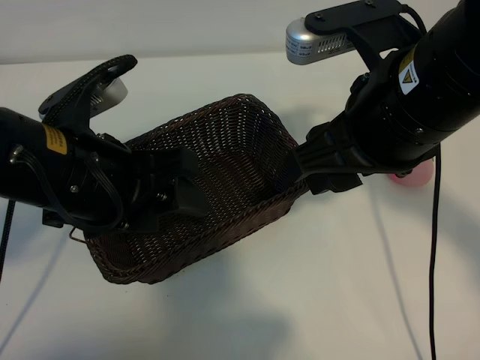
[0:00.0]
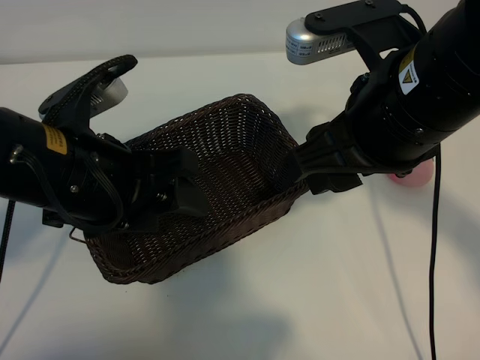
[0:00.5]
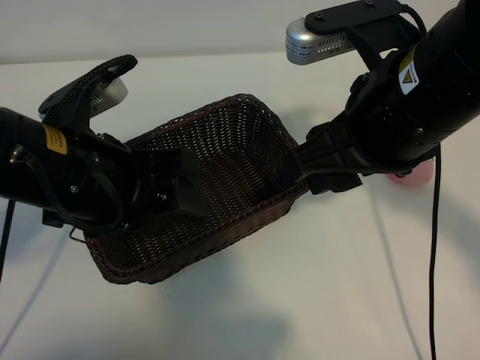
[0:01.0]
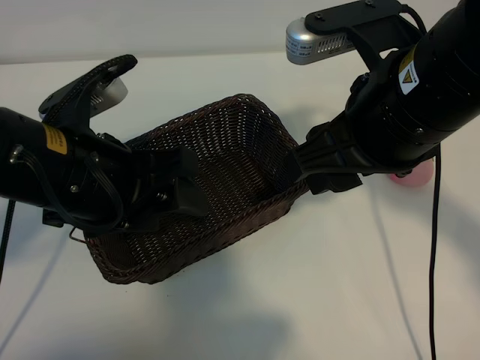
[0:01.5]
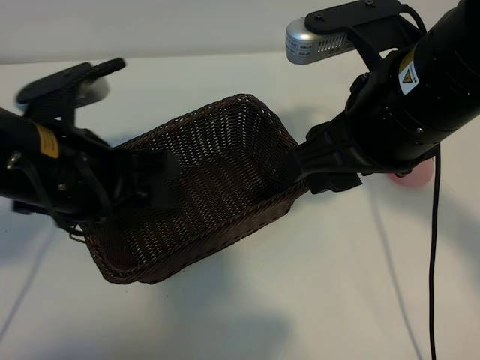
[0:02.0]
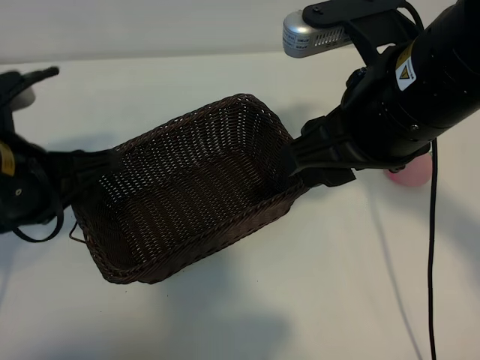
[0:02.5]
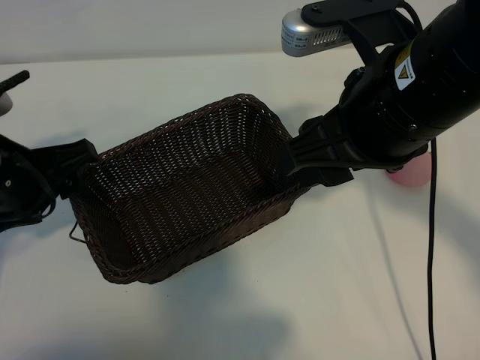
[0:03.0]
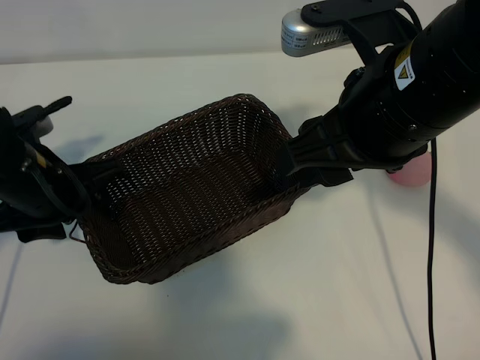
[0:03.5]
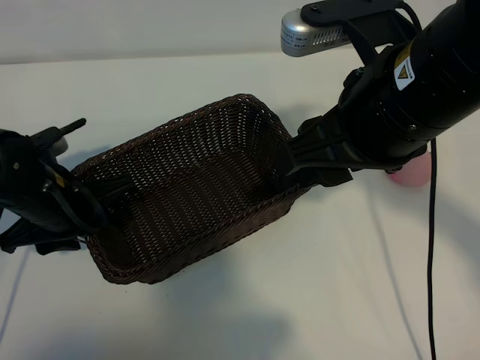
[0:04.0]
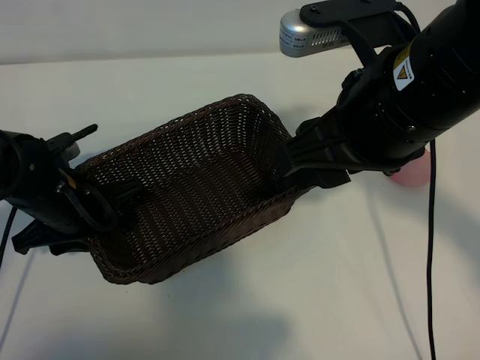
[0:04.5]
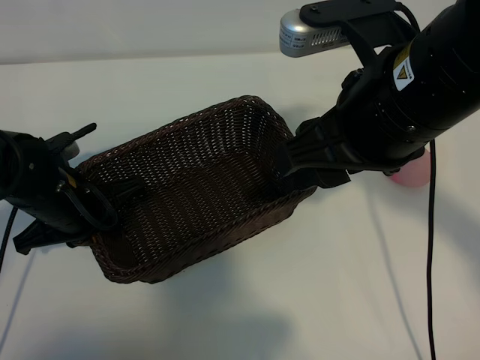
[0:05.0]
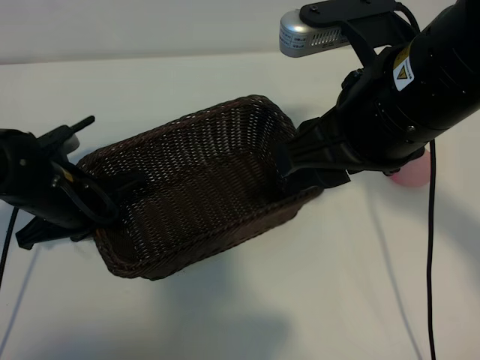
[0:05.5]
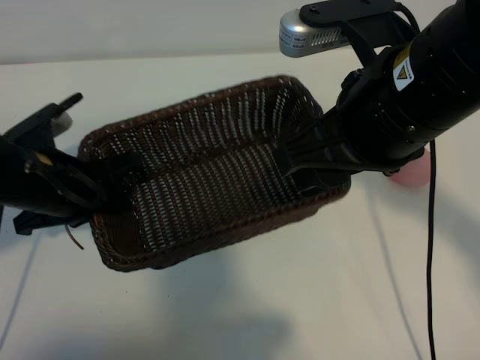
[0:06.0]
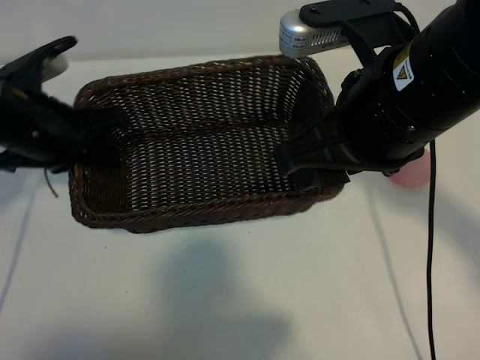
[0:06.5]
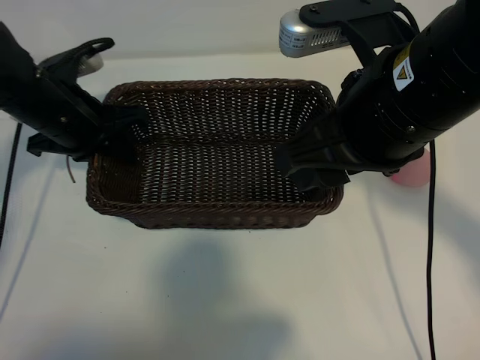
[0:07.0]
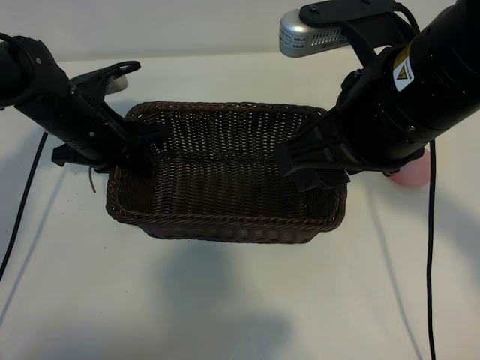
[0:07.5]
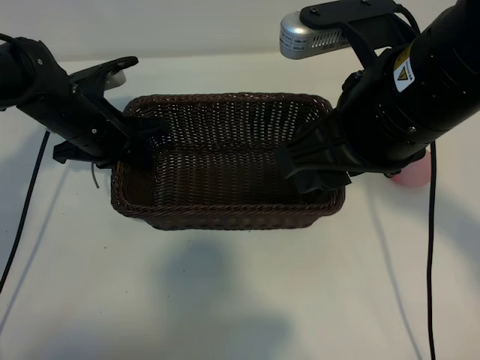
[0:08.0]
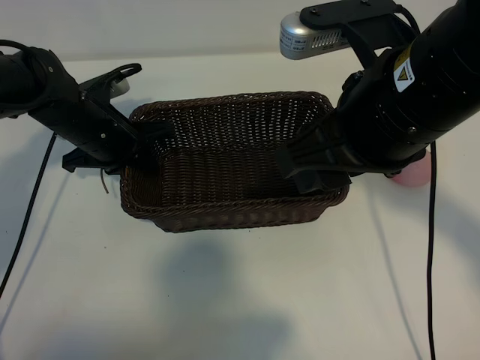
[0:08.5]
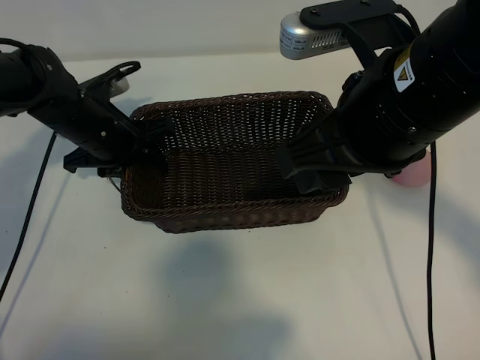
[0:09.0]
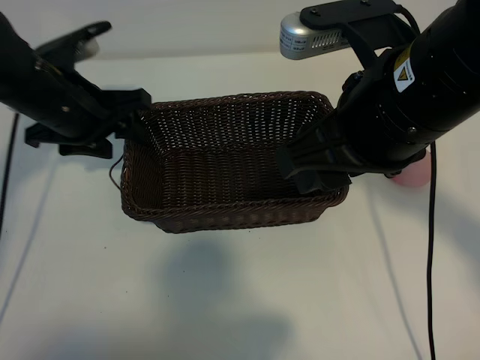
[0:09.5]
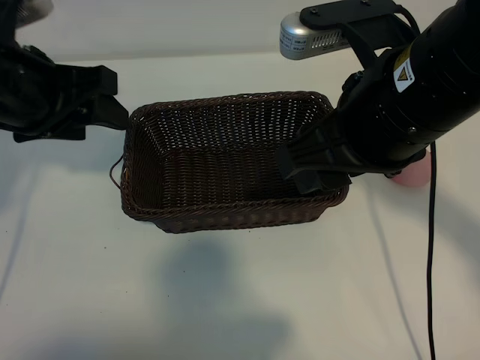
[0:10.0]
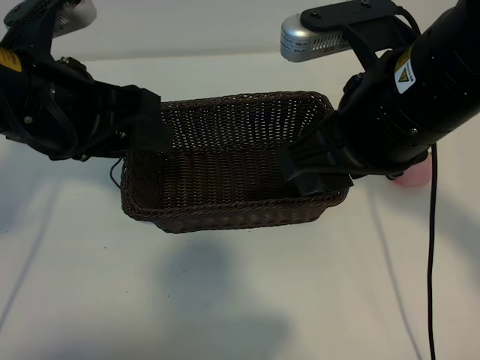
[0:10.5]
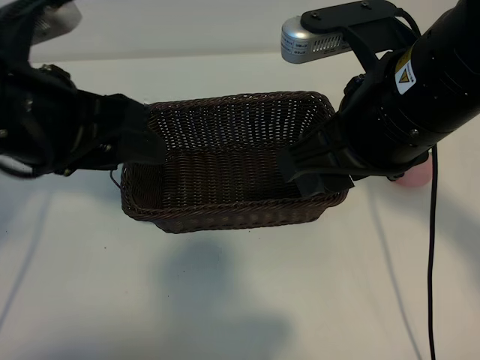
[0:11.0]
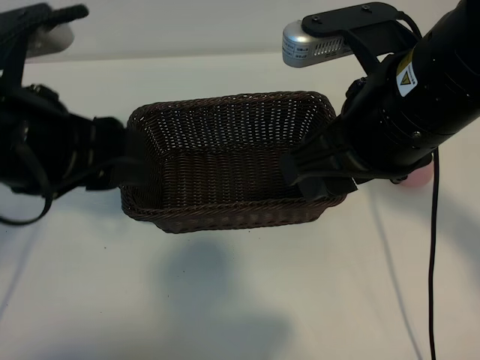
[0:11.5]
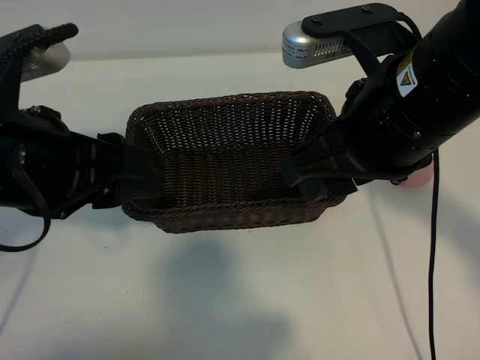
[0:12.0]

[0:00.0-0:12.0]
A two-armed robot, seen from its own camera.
Task of the whole recording: pick up the peach and put it into the basket.
Step, 0:02.0 to 0:05.0: Grasp the basket with left gripper.
Step, 0:05.5 to 0:09.0: Place the basket in the center of view with left gripper.

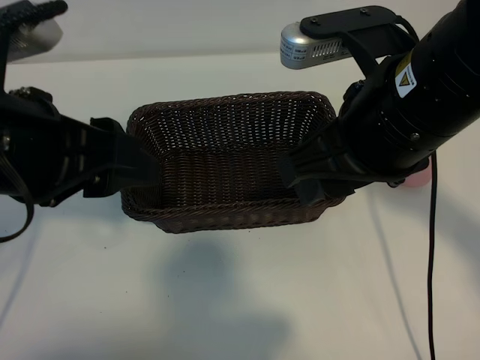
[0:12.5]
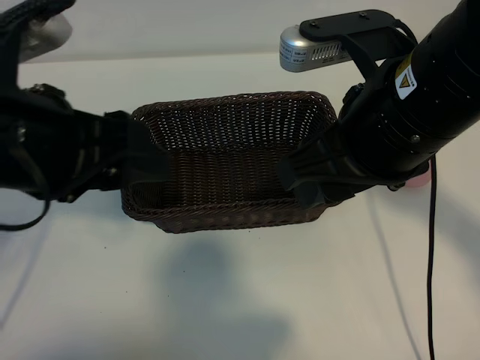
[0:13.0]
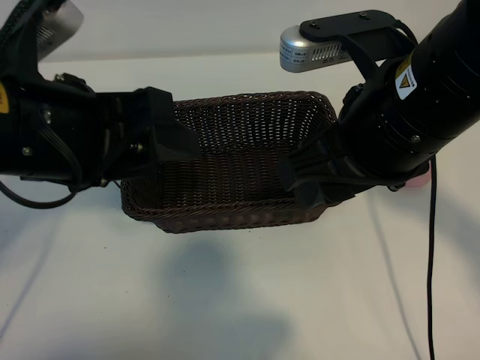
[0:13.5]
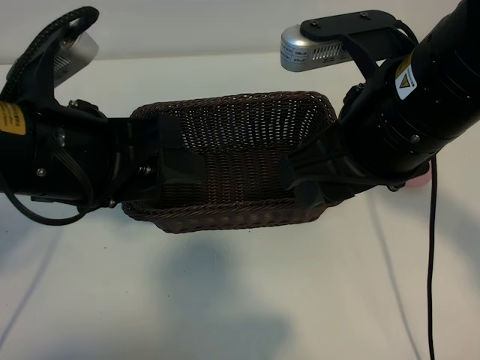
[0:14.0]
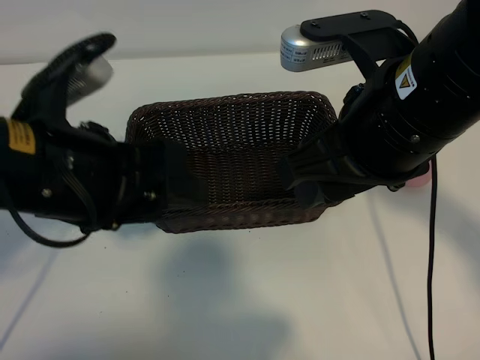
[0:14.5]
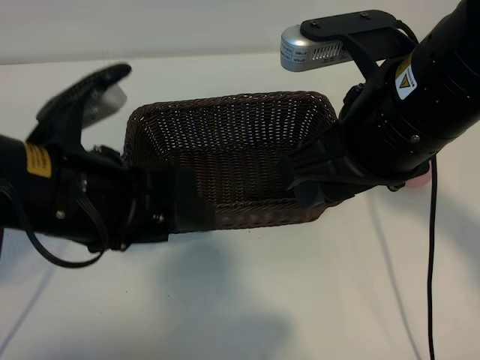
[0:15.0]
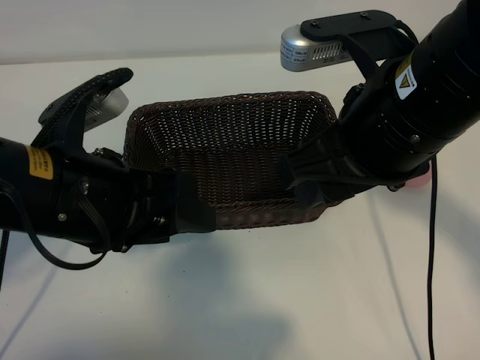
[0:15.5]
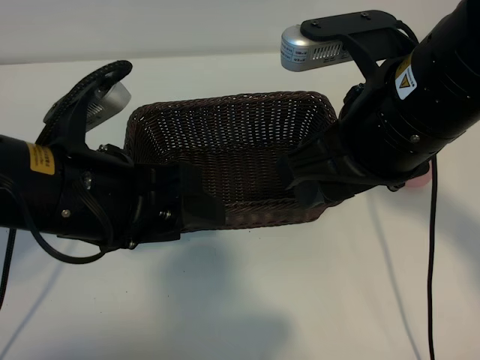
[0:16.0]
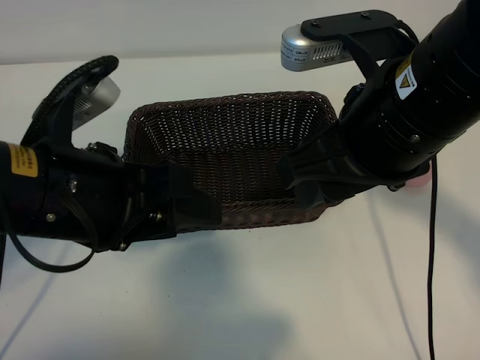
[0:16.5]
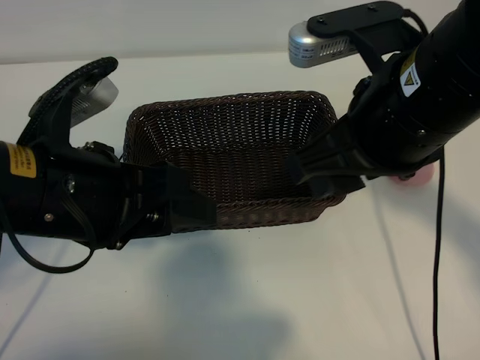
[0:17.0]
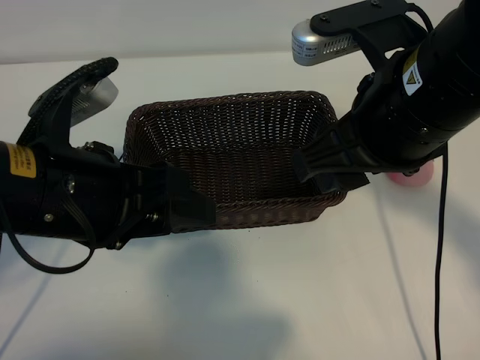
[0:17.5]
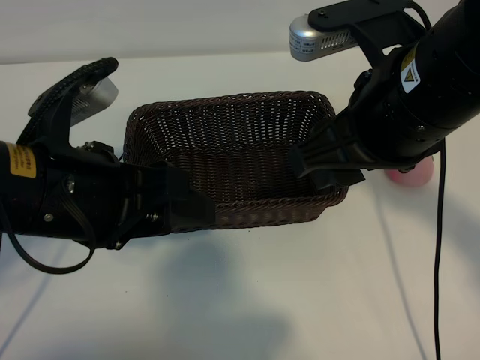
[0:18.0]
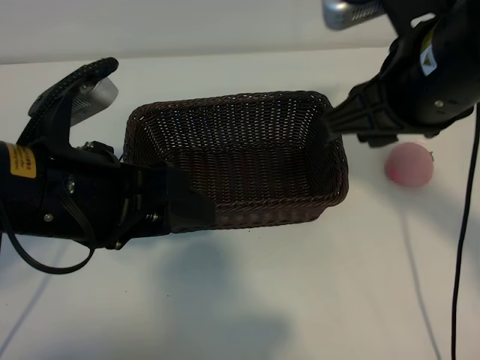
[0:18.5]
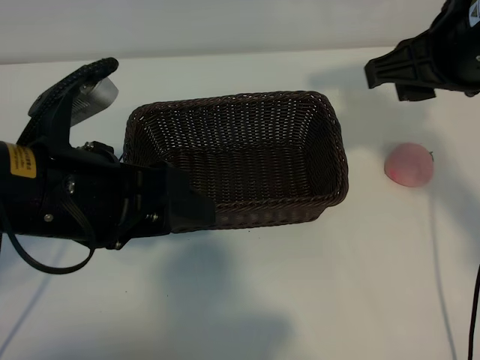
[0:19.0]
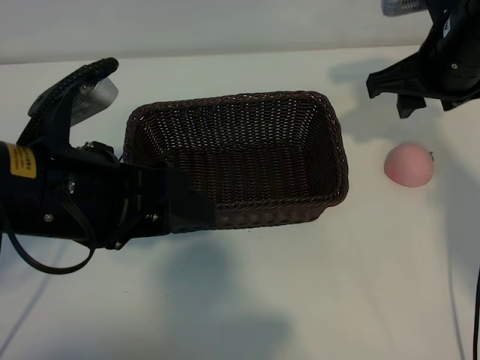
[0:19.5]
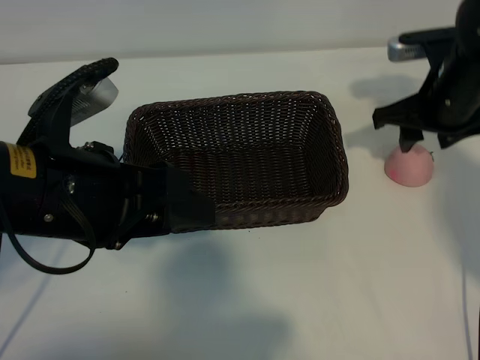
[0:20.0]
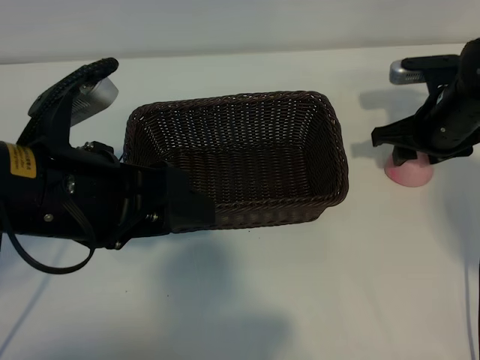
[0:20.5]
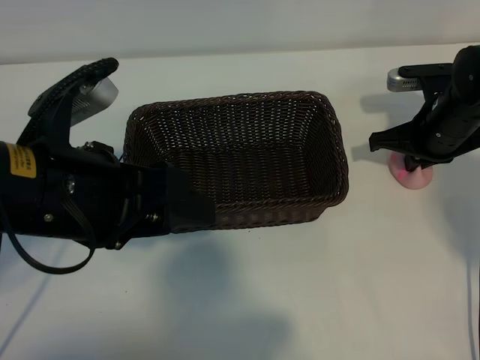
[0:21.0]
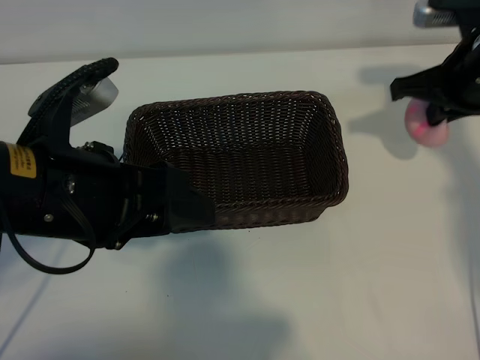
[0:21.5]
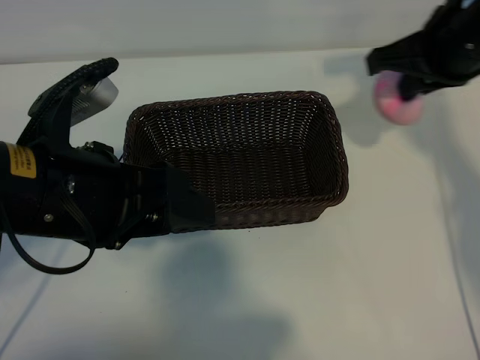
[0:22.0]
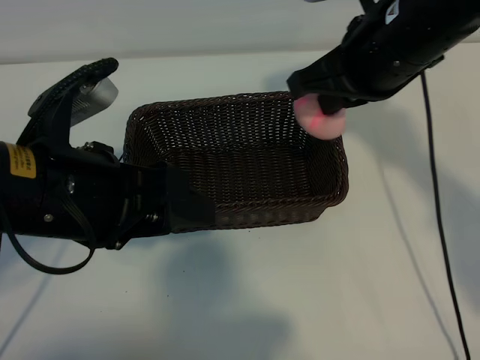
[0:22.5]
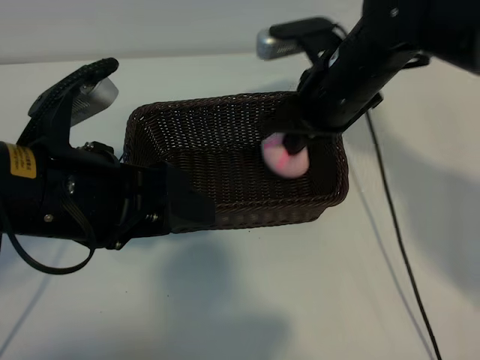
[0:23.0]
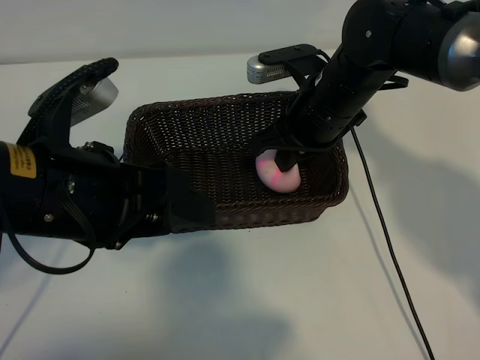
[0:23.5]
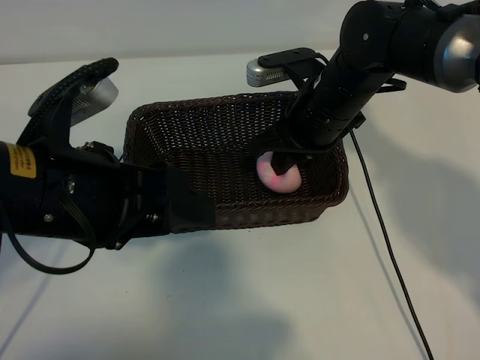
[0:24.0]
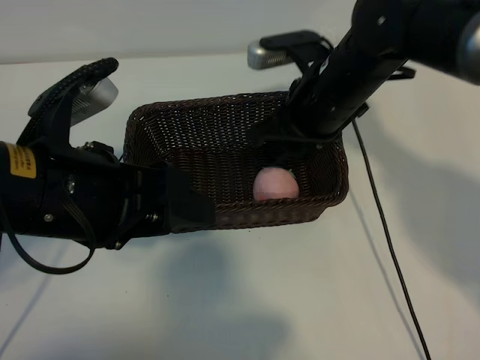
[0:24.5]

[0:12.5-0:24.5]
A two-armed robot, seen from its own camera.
Task of the whole recording: pick up the peach and put it into the basket.
Step, 0:12.5 to 0:21.0: Grasp the peach with right gripper.
Step, 0:21.5 to 0:24.0: Place the peach in the basket with right gripper.

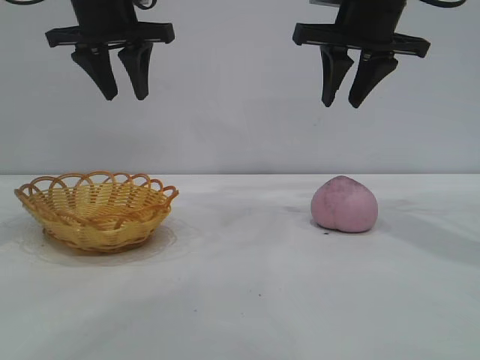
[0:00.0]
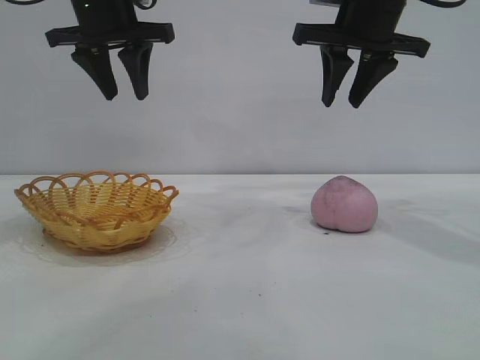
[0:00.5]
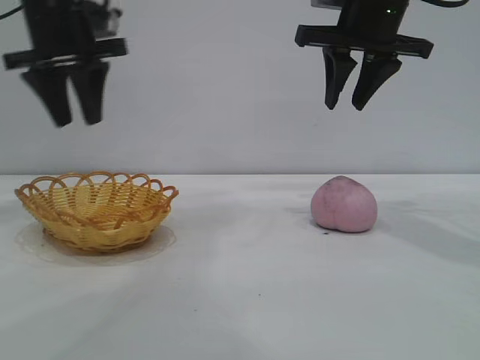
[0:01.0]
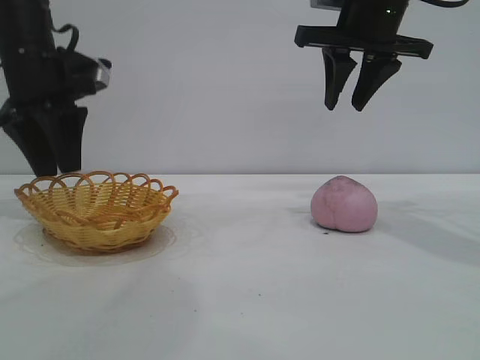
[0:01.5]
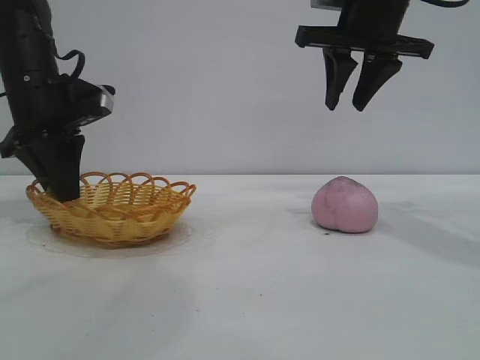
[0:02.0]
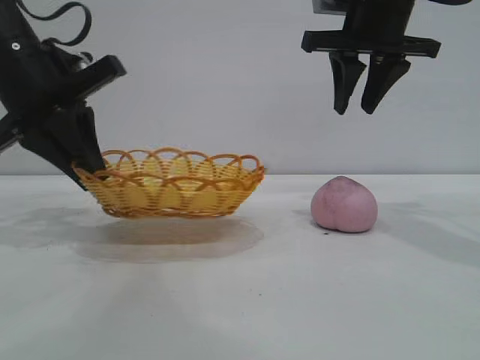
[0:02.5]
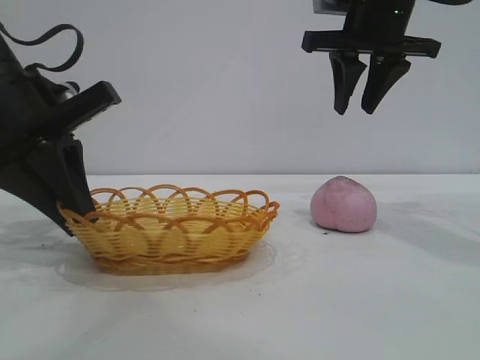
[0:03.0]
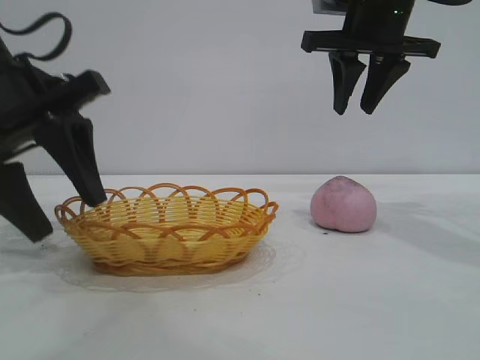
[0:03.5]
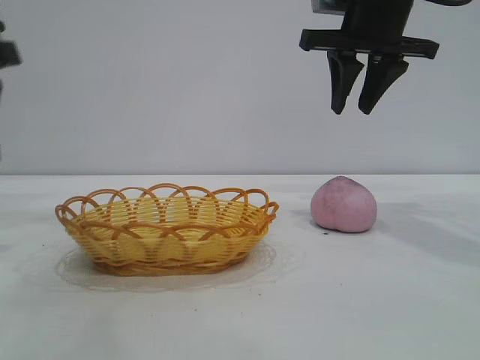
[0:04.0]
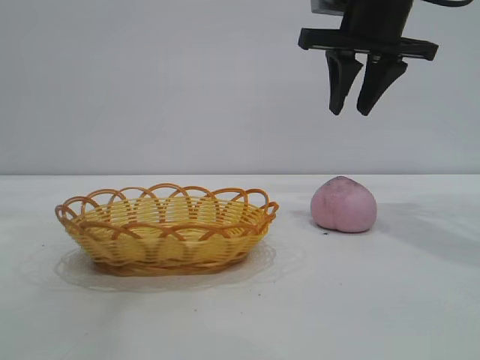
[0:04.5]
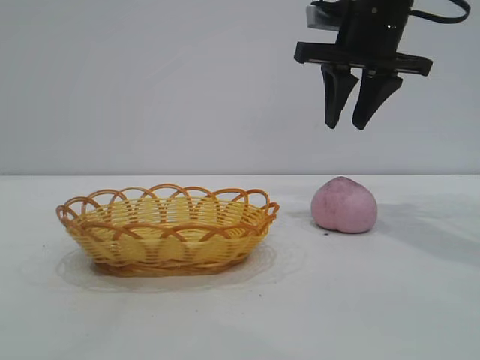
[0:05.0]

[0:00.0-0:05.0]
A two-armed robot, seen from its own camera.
Task of the whole recording: pick up the peach and put it into the basket.
Step, 0:00.0 to 0:03.5: Move the basket to the center of view.
